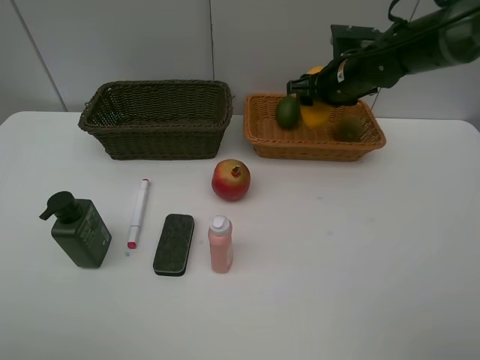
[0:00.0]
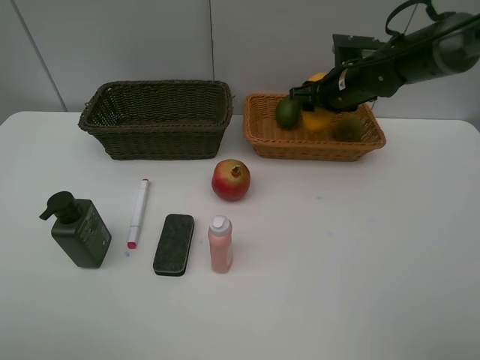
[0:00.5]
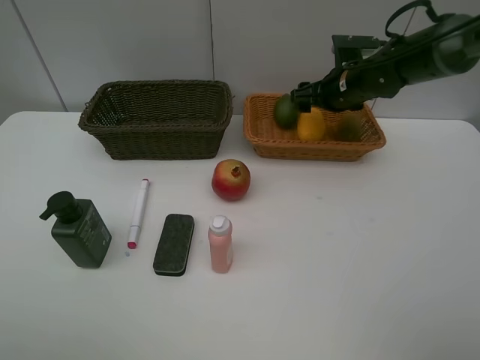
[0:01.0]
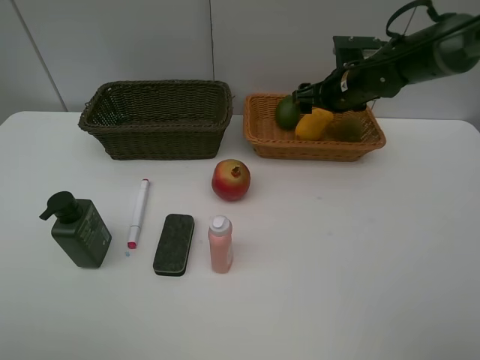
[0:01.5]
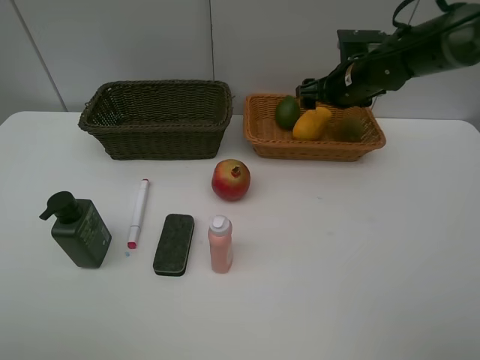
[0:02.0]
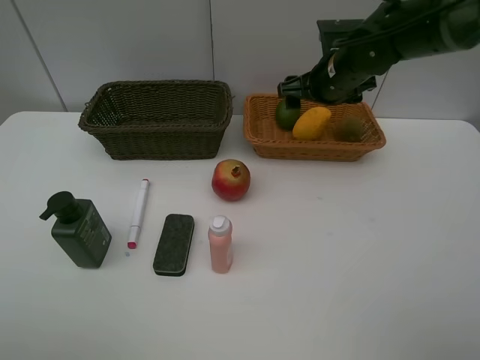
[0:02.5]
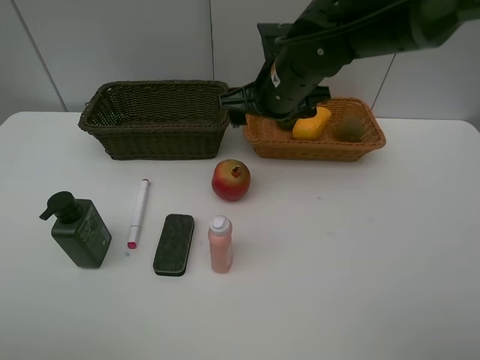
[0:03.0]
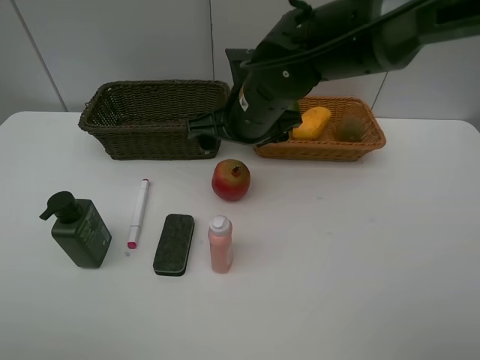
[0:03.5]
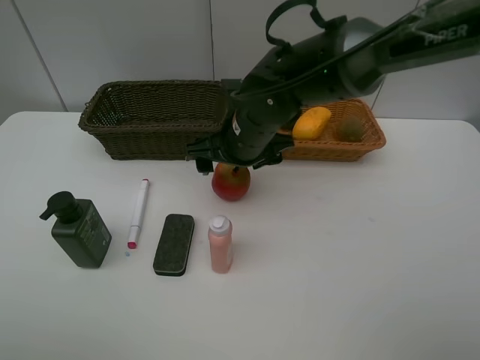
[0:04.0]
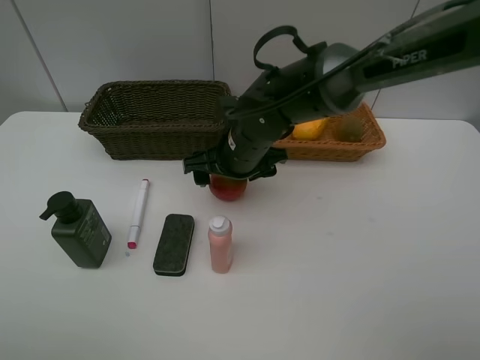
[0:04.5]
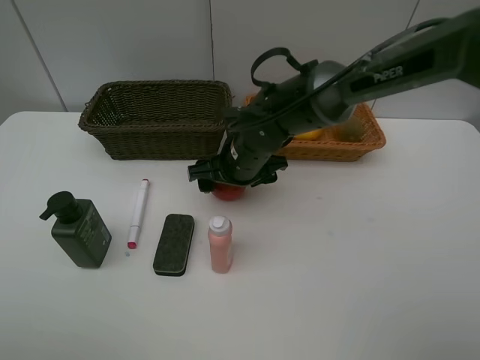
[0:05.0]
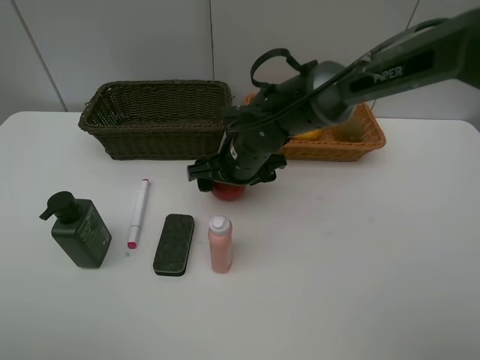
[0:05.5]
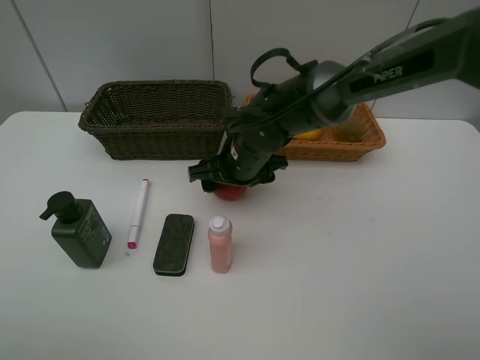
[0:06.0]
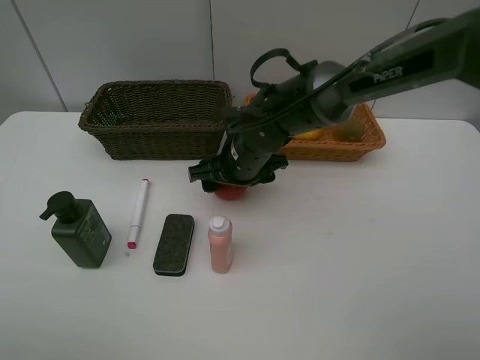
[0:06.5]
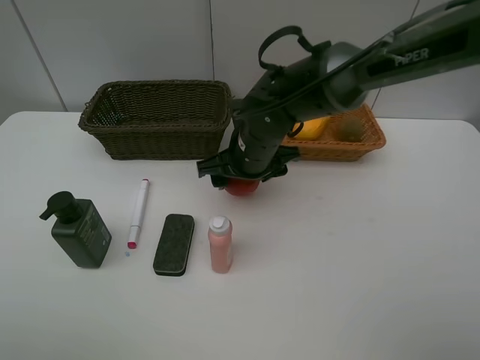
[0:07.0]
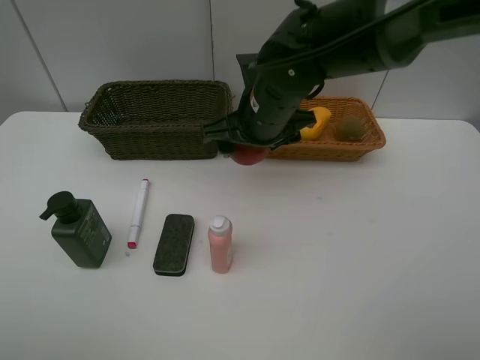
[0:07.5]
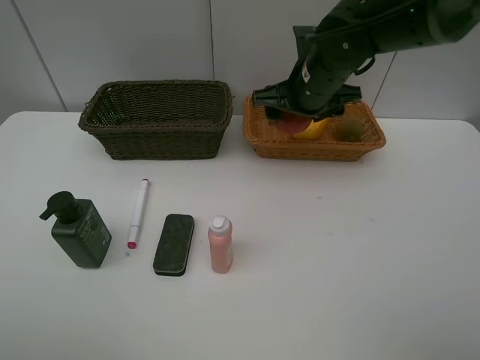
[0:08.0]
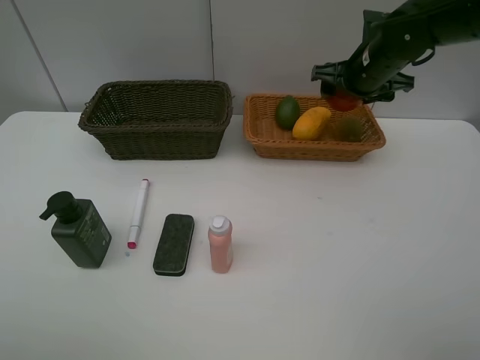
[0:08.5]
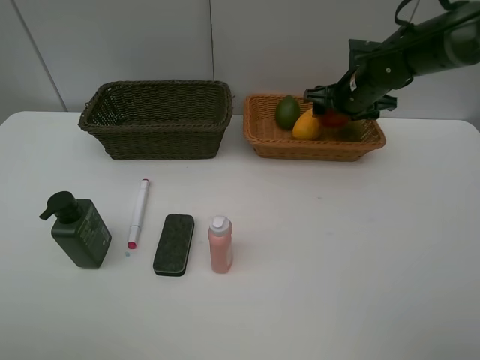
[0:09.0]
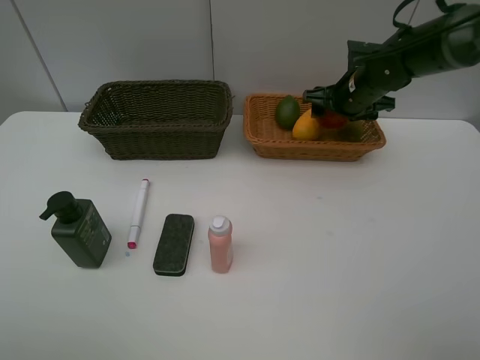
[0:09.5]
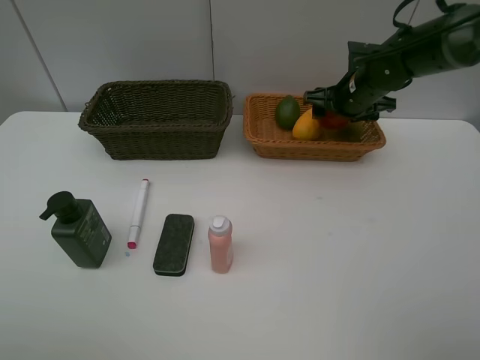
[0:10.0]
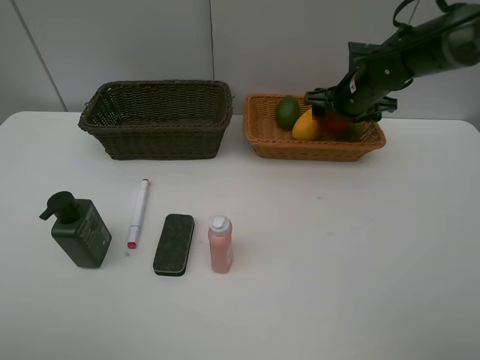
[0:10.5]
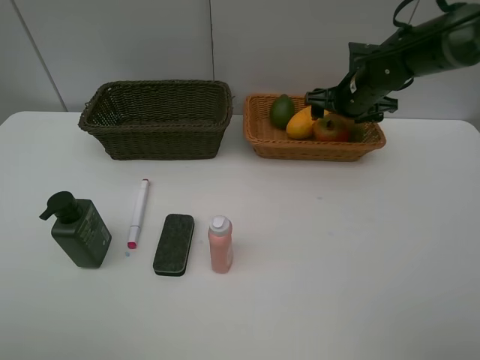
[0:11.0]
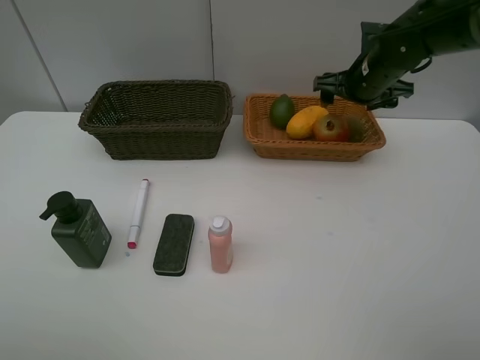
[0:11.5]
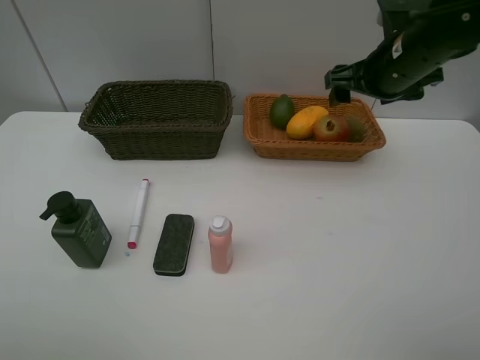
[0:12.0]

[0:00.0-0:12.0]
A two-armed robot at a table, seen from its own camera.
Task of the whole recording: Place multiple objects separately in different baskets.
Step, 0:00.0 to 0:02.0: Place the mango in the light basket with right gripper.
Step, 0:02.5 to 0:07.0: Pick up the pomegranate with right gripper.
Step, 0:07.5 to 0:11.5: Place the pomegranate in the light basket with right gripper.
0:00.0 to 0:02.0: The right gripper opens.
0:02.0 to 0:04.0: The right gripper goes some 20 cm to the left and backward.
0:04.0 to 0:06.0: The grippers stay close to where they were, moving slightly.
0:06.0 to 0:08.0: The right gripper is displaced to the right and upward by approximately 15 cm.
0:08.0 to 0:10.0: The right gripper is displaced to the right and forward by approximately 10 cm.
0:10.0 to 0:12.0: The right gripper goes approximately 15 cm backward and upward.

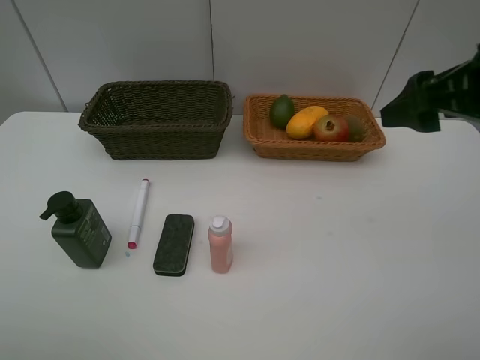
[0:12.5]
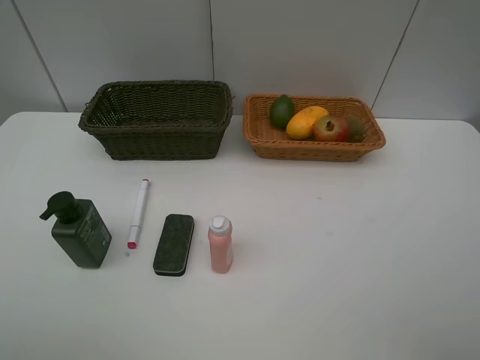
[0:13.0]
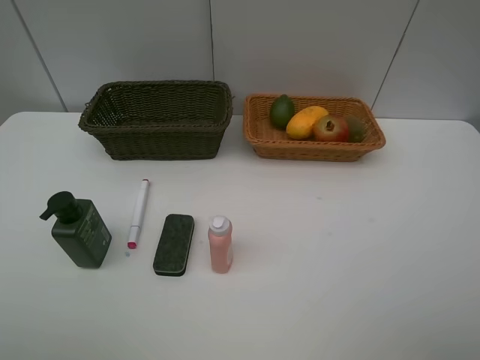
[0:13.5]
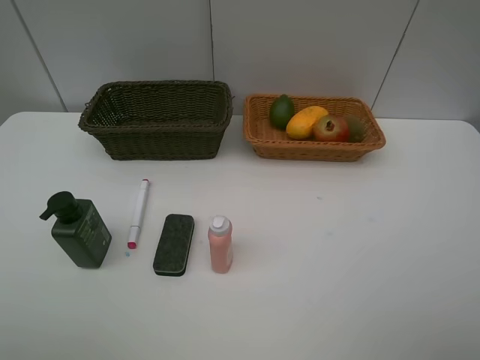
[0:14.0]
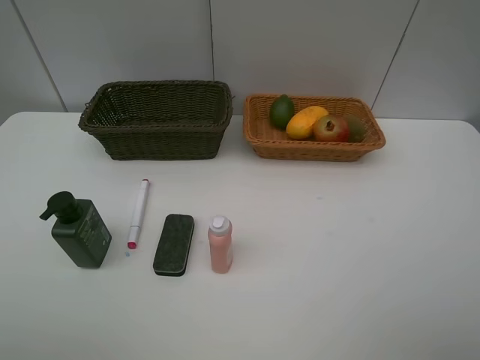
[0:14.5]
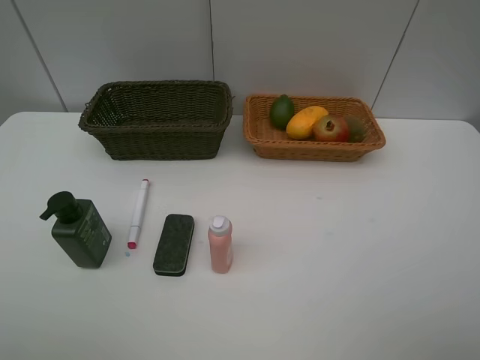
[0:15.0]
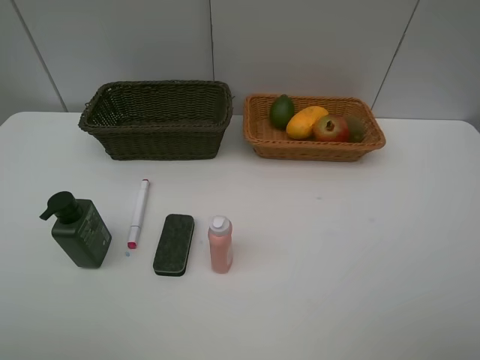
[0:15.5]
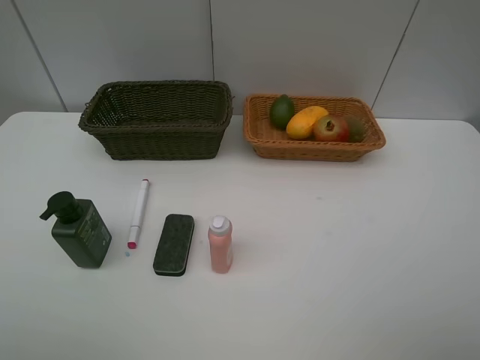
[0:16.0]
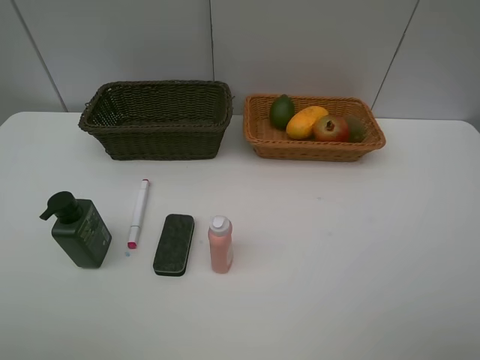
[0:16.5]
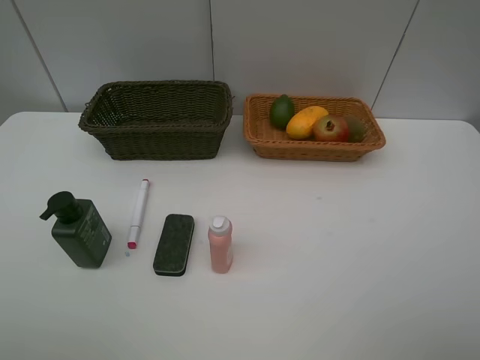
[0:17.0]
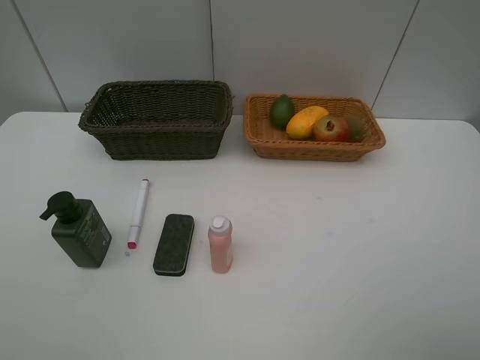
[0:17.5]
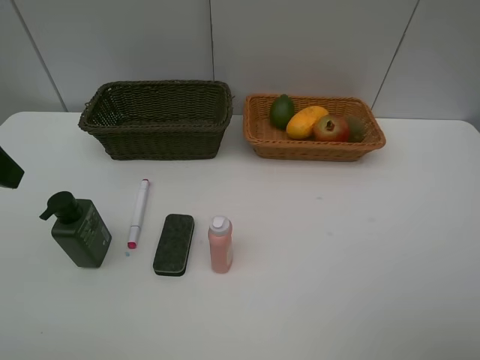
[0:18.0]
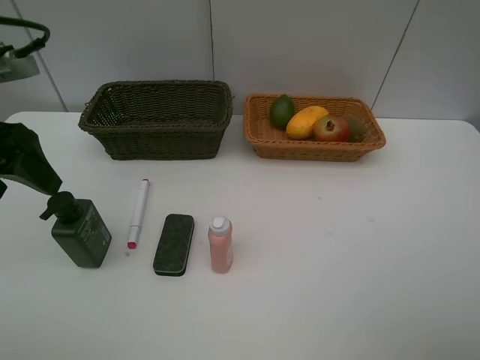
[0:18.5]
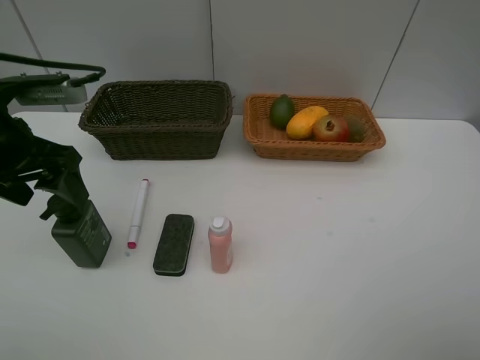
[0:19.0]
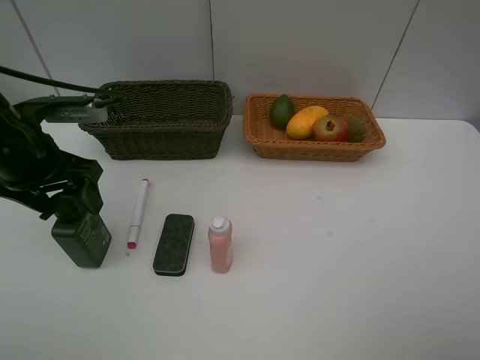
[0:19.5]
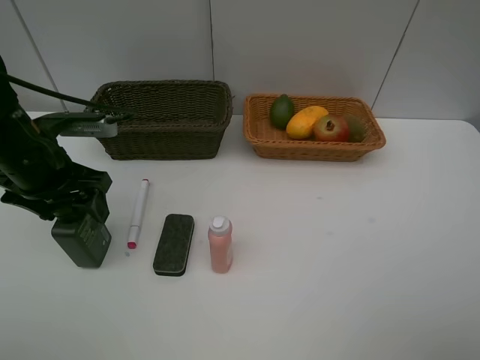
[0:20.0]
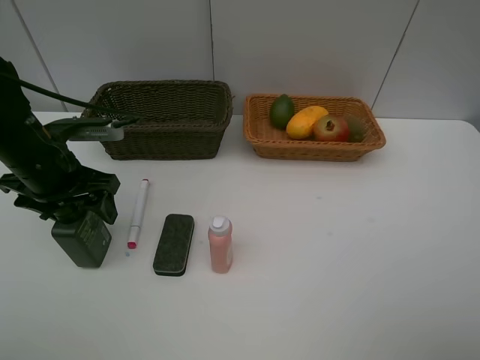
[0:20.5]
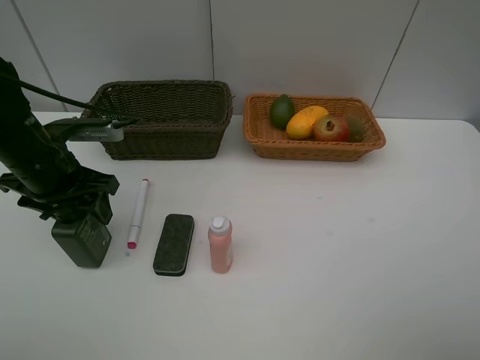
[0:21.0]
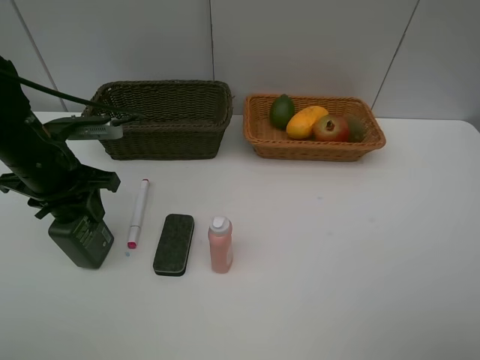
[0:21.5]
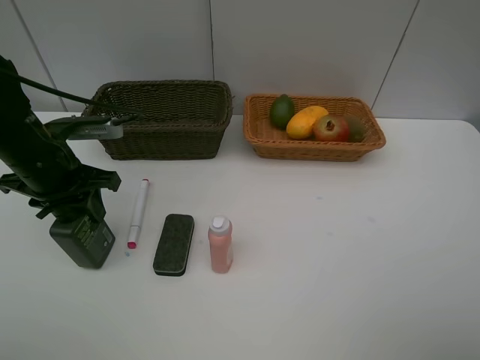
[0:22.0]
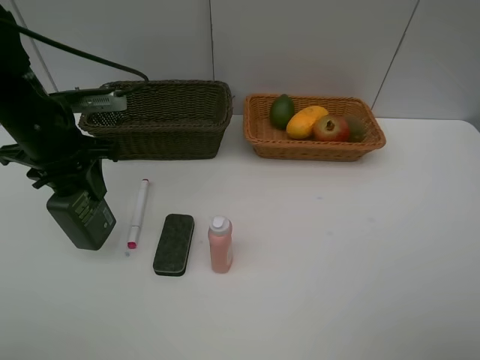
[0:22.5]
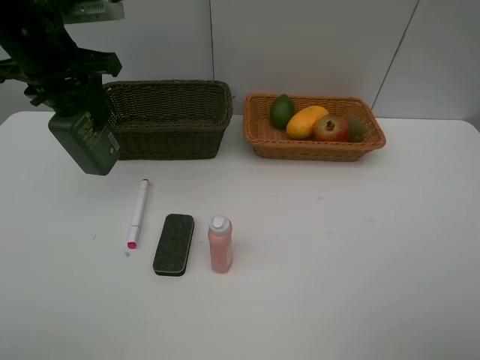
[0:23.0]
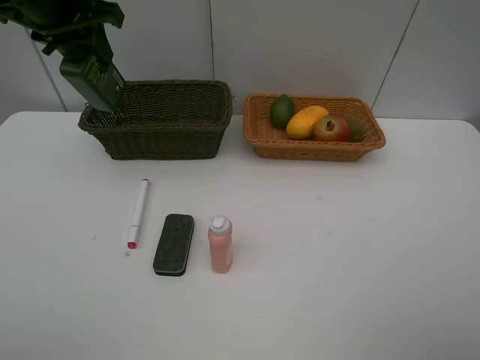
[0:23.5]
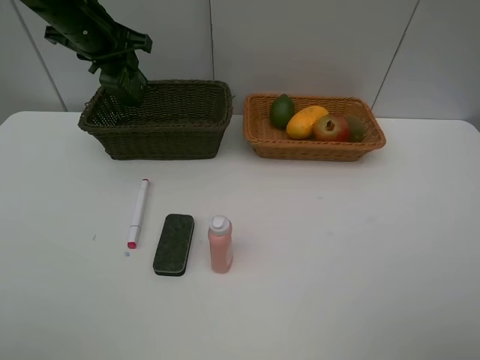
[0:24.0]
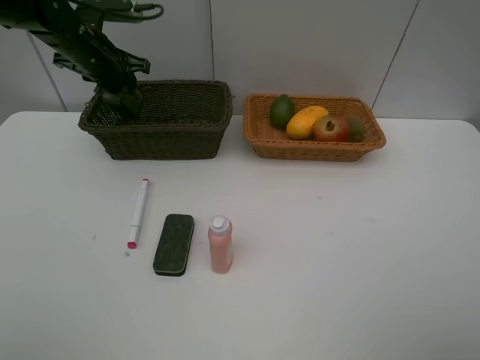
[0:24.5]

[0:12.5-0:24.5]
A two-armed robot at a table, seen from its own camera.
Task of the whole recording: Place multiple objects separately in different baskets.
Step, 0:12.5 to 0:22.0: Pick up the hard facial cleanser with left gripper.
0:12.5 to 0:14.5: The right gripper goes some 20 cm backward.
0:14.5 to 0:16.5: Neither gripper changes place.
0:16.5 to 0:18.5: The left gripper moves forward, roughly 25 cm.
0:18.5 to 0:20.5: The left gripper shifts about 10 cm downward and forward.
0:20.5 to 0:22.5: The left gripper closes its fingers.
0:22.5 to 0:24.5: The left gripper moves forward, about 15 cm.

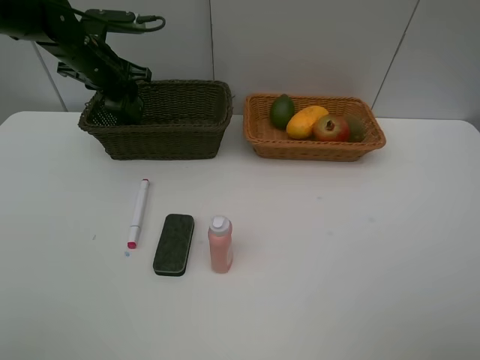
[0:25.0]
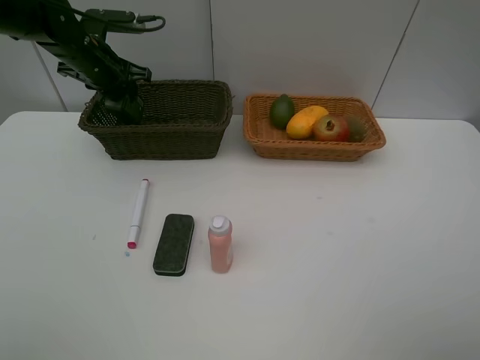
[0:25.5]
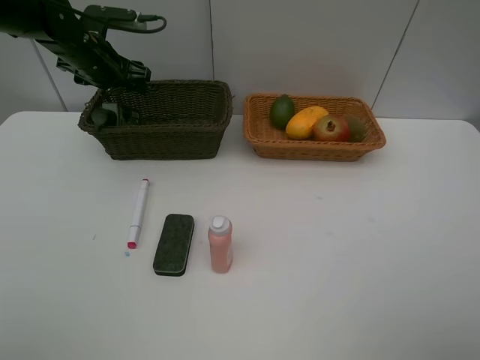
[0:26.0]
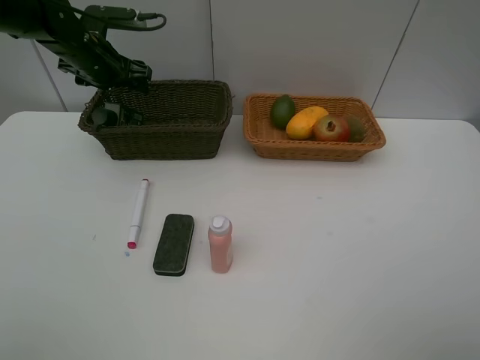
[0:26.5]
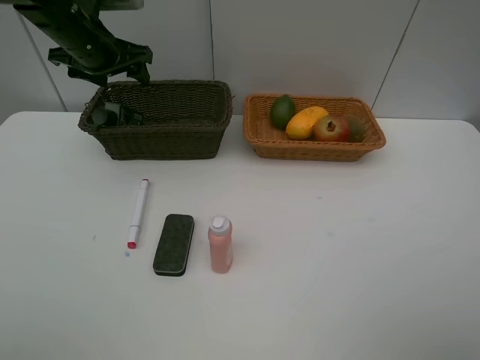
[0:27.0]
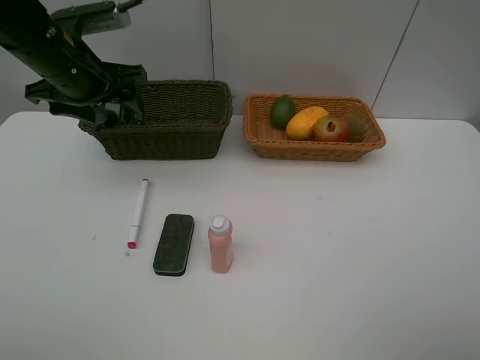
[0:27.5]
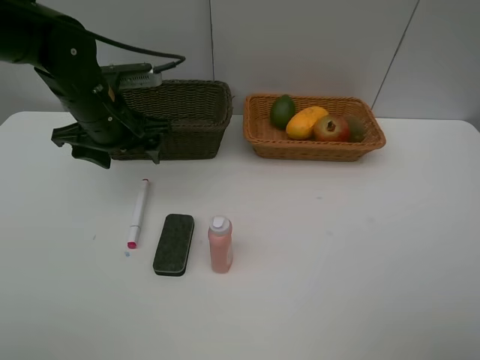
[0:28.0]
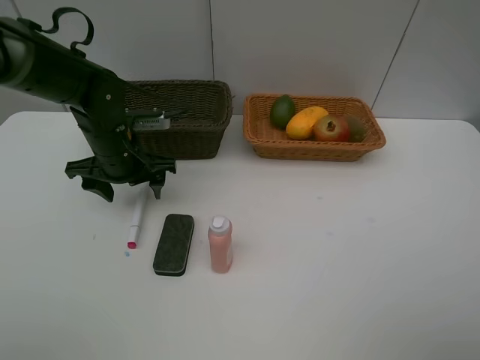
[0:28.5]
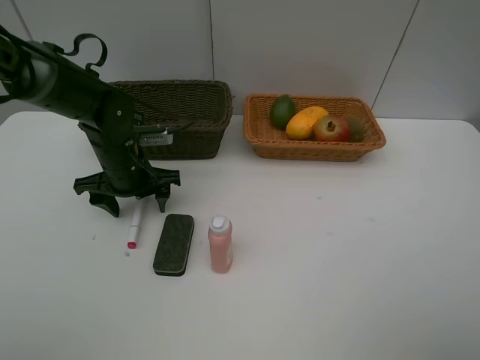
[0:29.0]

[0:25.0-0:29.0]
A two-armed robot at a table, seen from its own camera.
Task of the whole recording: Place multiple objects separately in different baskets.
0:25.0 to 0:27.0: The left gripper is displaced upward by approximately 5 cm, and opens its fingers.
0:27.0 to 0:29.0: The left gripper shifts approximately 20 cm downward and backward.
